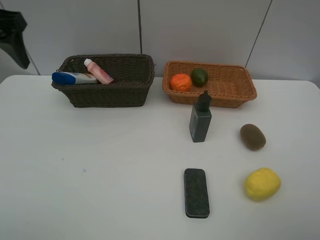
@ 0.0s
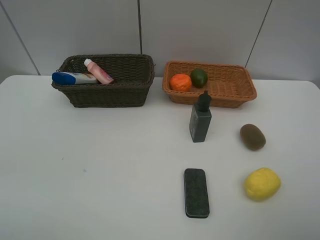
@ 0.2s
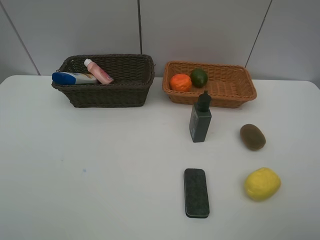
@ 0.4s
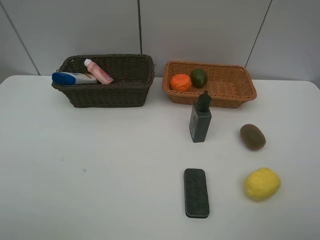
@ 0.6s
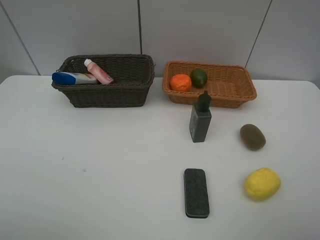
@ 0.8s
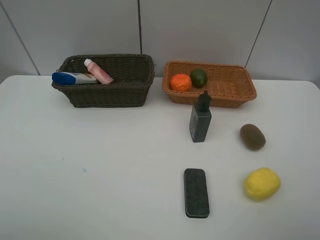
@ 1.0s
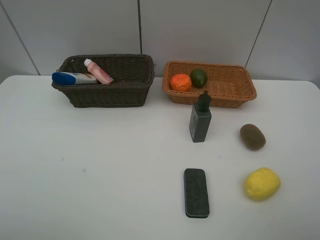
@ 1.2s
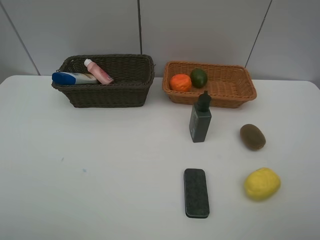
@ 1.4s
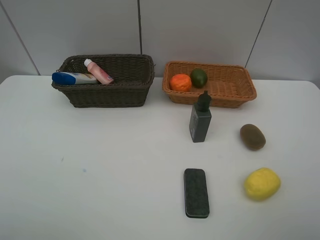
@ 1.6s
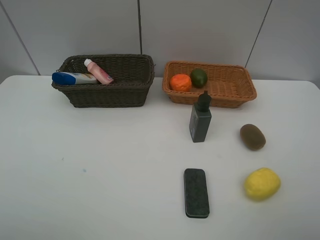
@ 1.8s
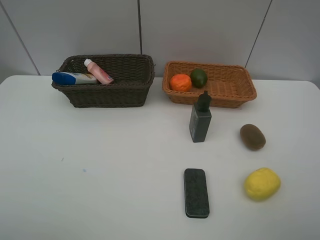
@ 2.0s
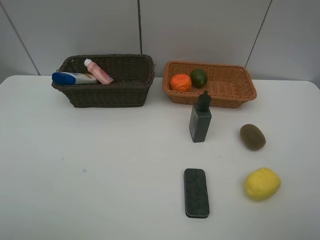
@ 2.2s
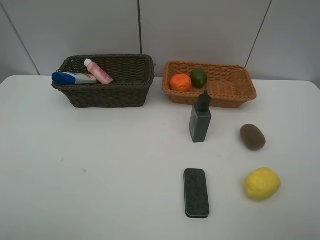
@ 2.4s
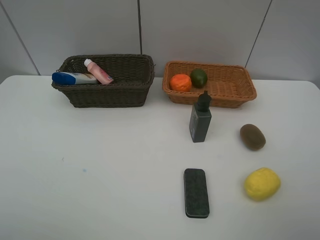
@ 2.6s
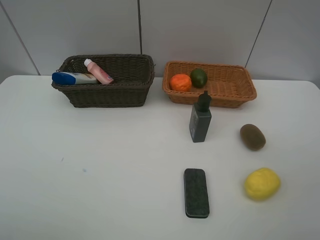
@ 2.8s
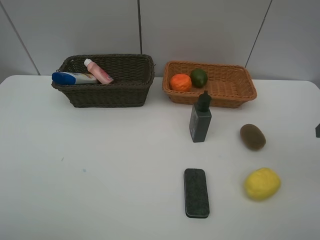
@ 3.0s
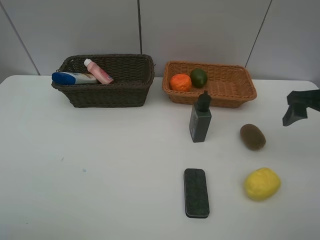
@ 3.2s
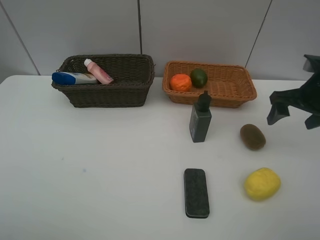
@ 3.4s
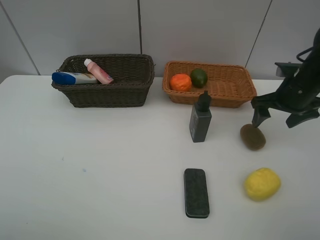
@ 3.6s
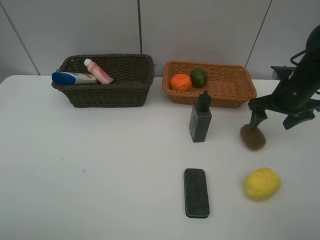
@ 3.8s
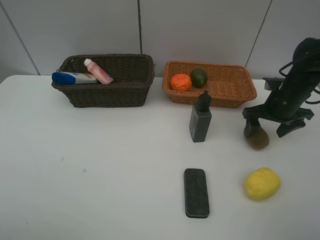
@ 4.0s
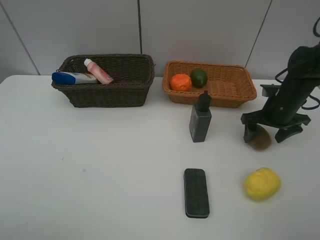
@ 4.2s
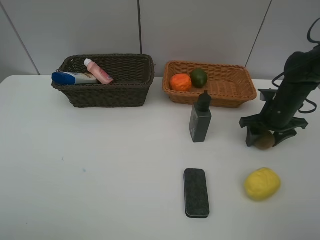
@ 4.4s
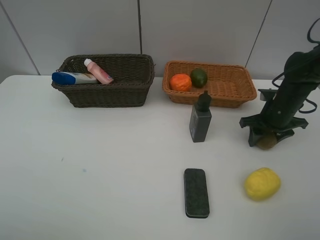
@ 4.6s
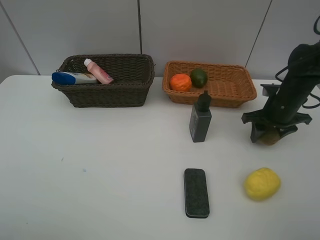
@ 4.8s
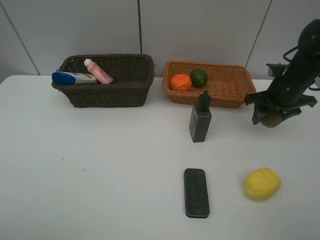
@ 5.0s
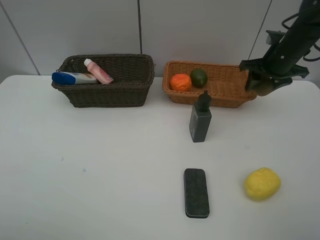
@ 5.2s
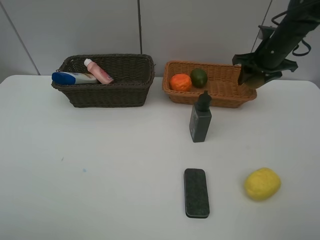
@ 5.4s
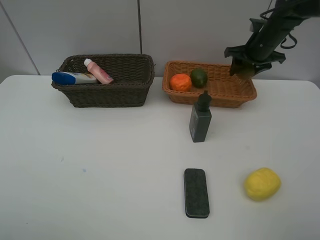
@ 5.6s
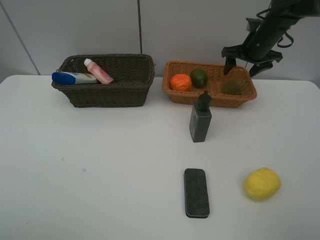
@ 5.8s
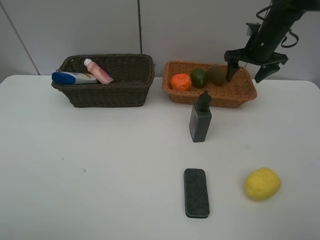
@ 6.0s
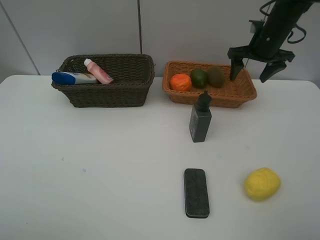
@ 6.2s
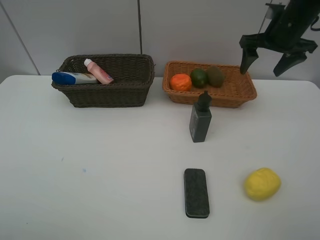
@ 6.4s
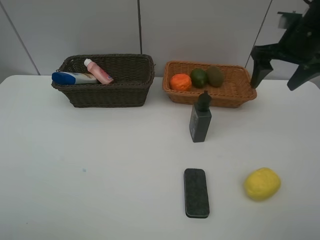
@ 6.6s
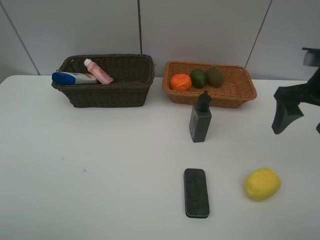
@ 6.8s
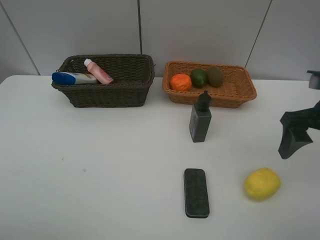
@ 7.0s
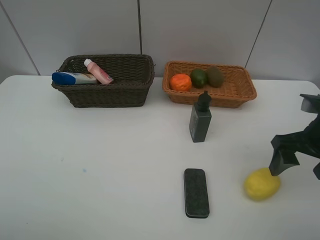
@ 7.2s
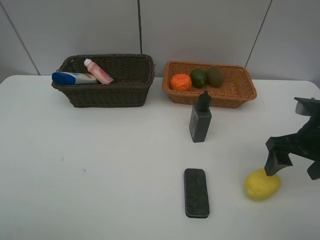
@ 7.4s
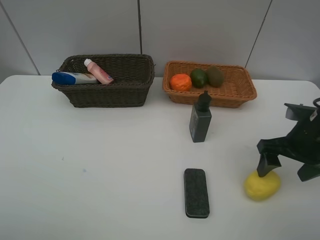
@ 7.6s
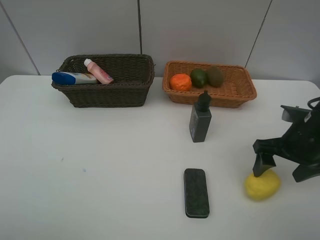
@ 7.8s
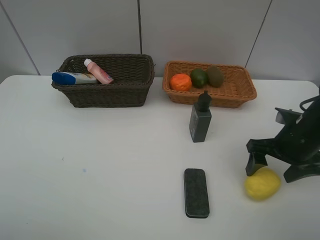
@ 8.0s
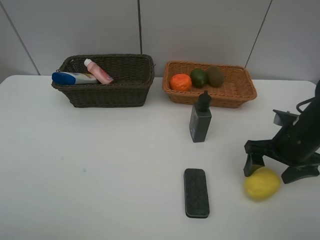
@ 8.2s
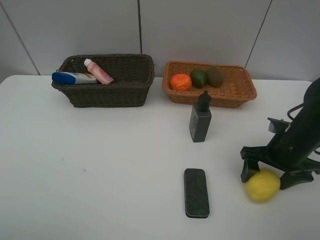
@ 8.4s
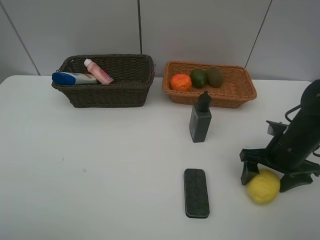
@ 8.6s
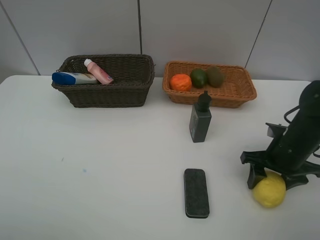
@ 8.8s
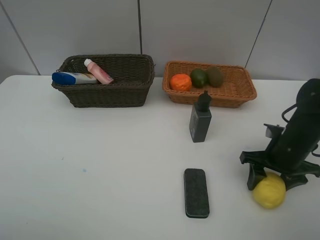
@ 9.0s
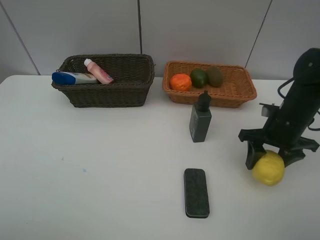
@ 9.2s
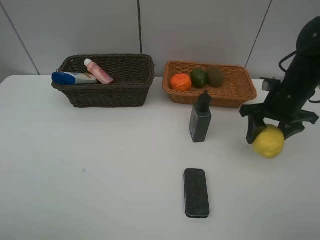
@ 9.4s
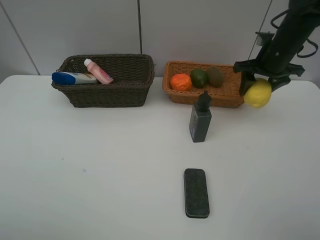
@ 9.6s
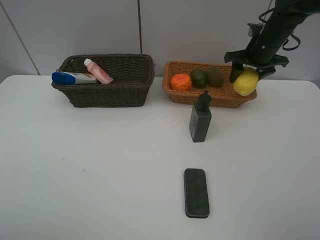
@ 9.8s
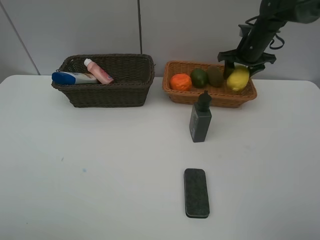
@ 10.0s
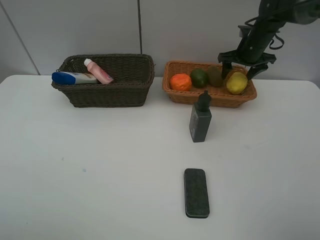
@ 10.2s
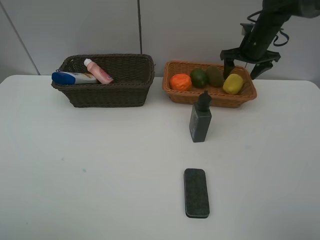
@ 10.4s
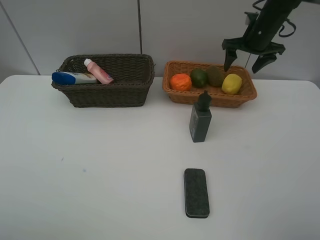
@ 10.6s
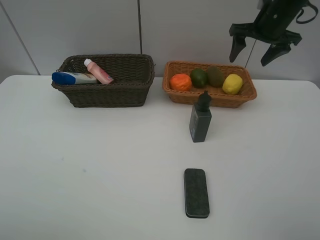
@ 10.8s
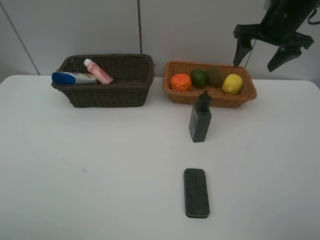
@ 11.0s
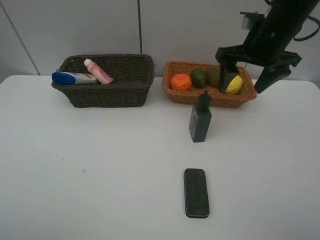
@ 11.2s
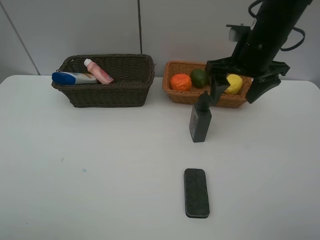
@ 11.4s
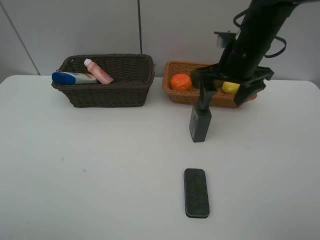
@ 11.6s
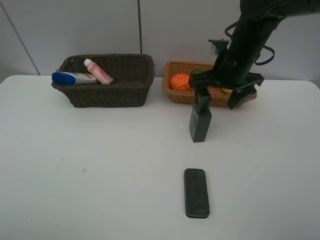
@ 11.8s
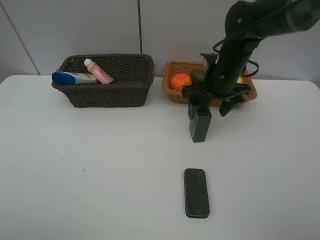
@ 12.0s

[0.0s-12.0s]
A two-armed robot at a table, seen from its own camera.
Task of the whole recording: Place multiple objects separately in different baskets.
Step, 0.0s to 4.8s: Pick up kiwi with right gripper.
Step, 5.0s to 5.8s: Place the kiwi in the light basket with right gripper.
Step, 6.0s to 9.2s: Pick up the lemon with right gripper.
Step, 9.4s to 10.4s: Place the lemon in the light basket with right gripper.
0.0s to 1.6s: The left gripper travels backward by approximately 30 cm.
3.0s to 4.4s: The right gripper is displaced forward and downward by roughly 20 cm, and closes up.
4.4s to 6.0s: The right gripper heads forward and upward, covering about 15 cm, and opens its fingers.
6.0s to 7.6s: The right gripper shifts about 25 cm backward.
7.6s to 9.0s: The right gripper goes roughly 5 cm downward, and closes up.
9.0s to 10.4s: The right gripper travels forward by about 25 cm, and opens its fingers.
10.4s to 12.0s: The right gripper goes about 20 cm backward and to the left.

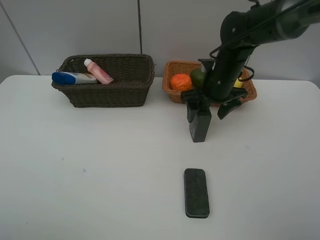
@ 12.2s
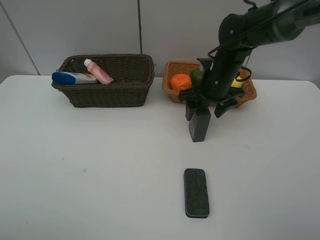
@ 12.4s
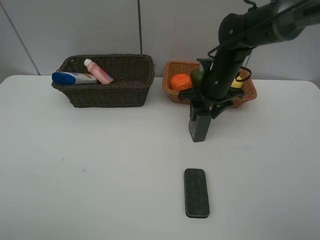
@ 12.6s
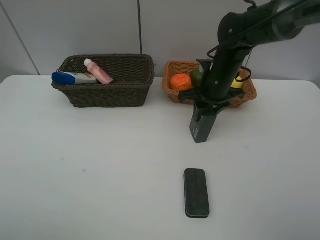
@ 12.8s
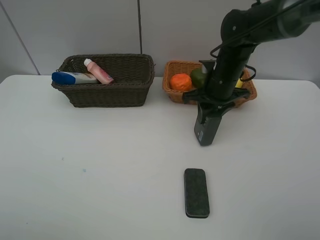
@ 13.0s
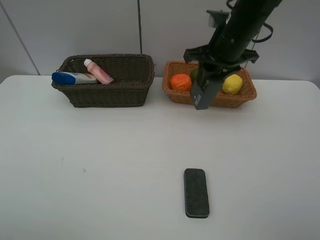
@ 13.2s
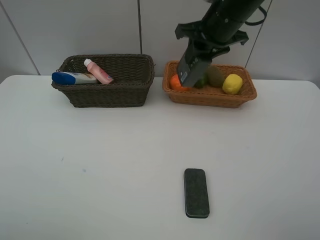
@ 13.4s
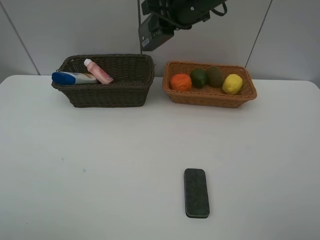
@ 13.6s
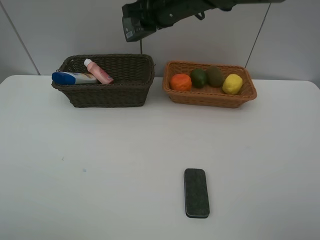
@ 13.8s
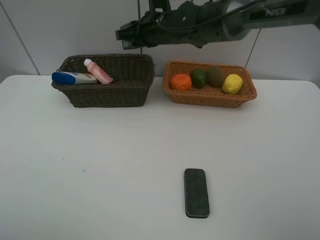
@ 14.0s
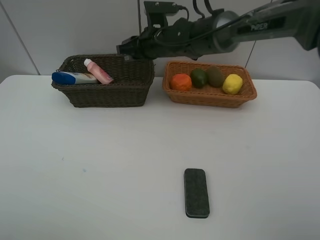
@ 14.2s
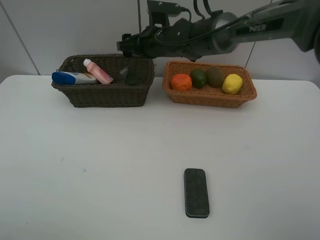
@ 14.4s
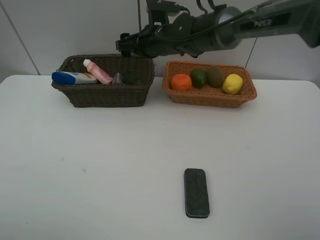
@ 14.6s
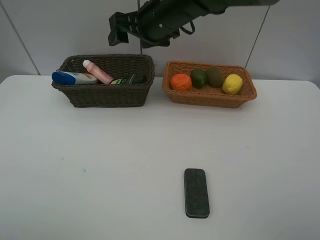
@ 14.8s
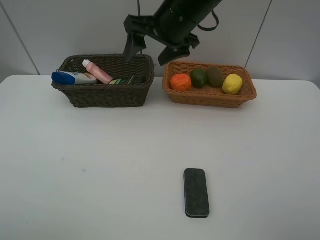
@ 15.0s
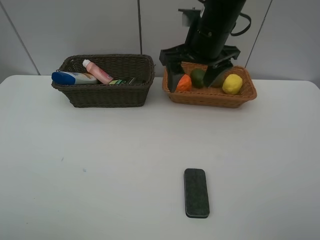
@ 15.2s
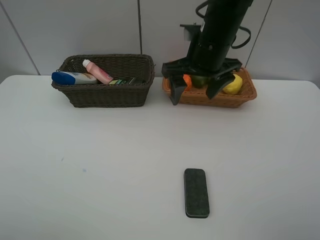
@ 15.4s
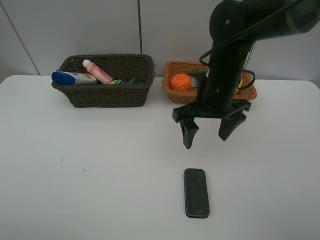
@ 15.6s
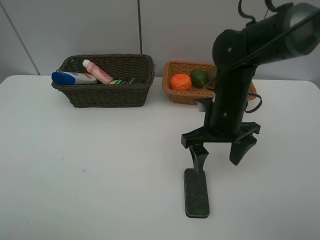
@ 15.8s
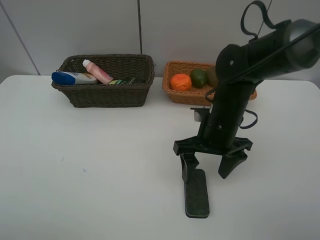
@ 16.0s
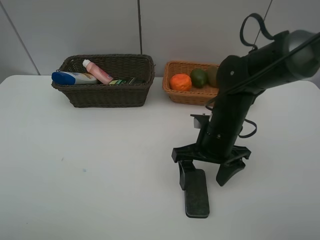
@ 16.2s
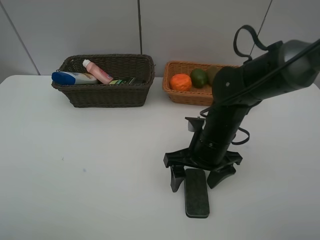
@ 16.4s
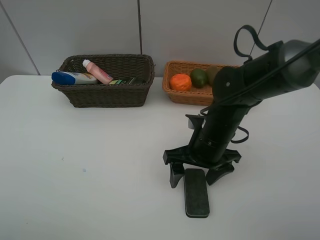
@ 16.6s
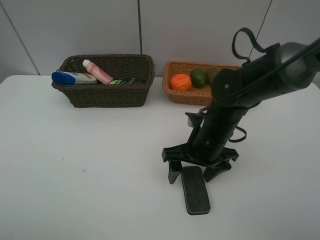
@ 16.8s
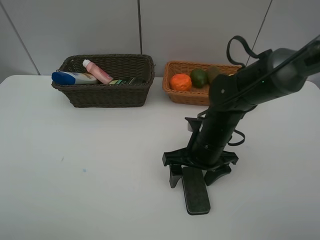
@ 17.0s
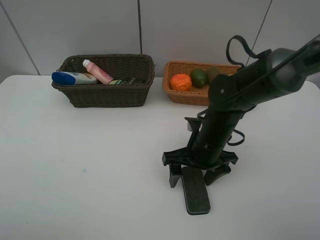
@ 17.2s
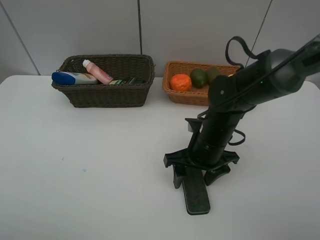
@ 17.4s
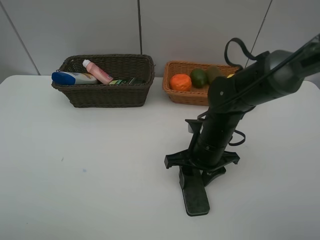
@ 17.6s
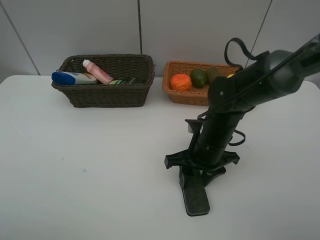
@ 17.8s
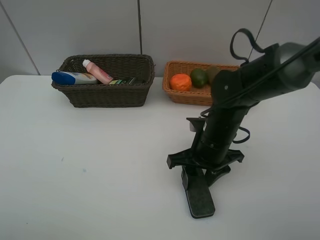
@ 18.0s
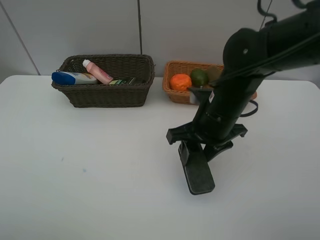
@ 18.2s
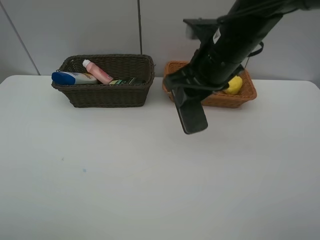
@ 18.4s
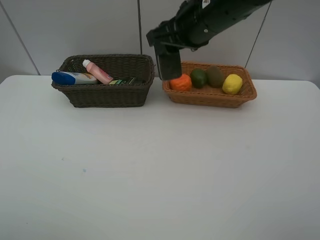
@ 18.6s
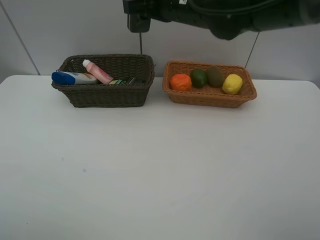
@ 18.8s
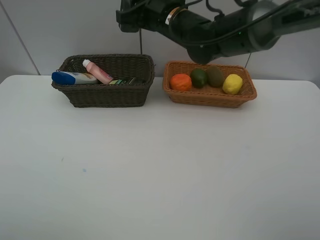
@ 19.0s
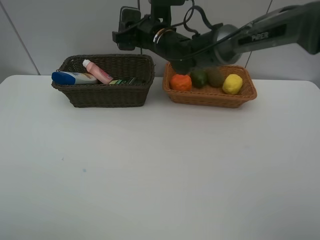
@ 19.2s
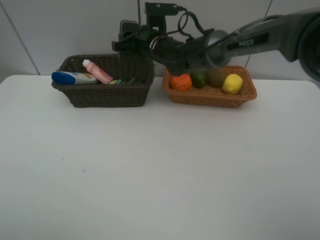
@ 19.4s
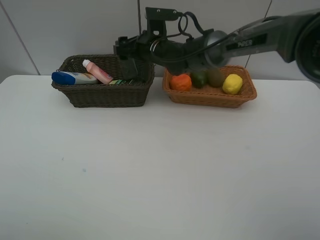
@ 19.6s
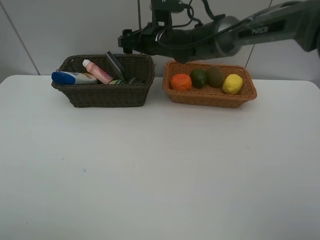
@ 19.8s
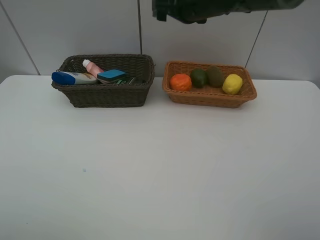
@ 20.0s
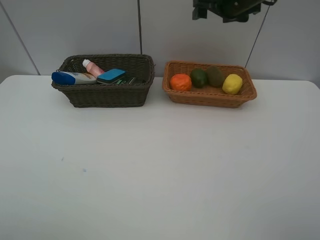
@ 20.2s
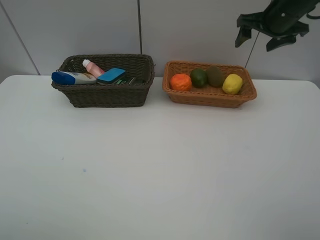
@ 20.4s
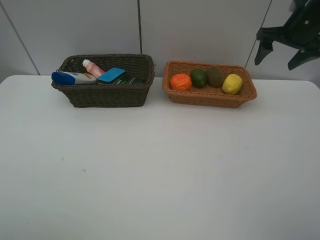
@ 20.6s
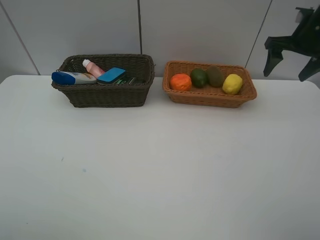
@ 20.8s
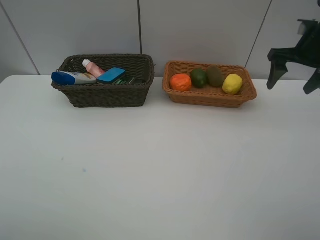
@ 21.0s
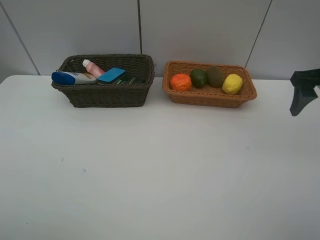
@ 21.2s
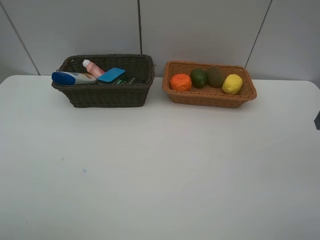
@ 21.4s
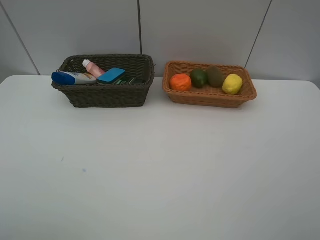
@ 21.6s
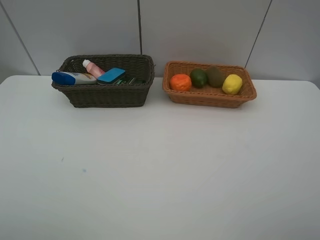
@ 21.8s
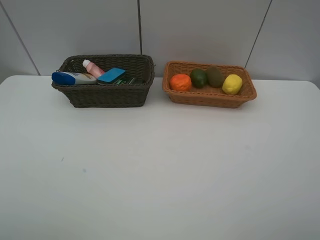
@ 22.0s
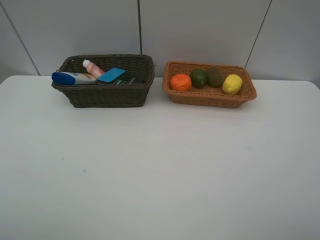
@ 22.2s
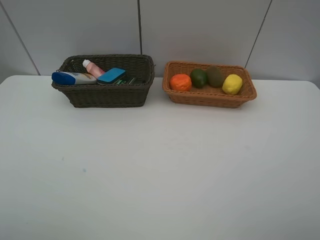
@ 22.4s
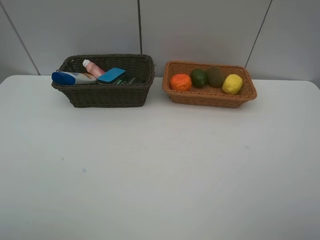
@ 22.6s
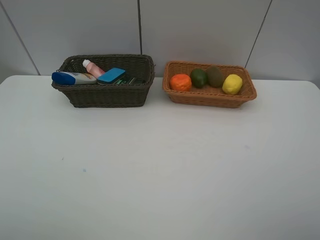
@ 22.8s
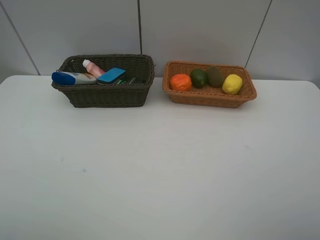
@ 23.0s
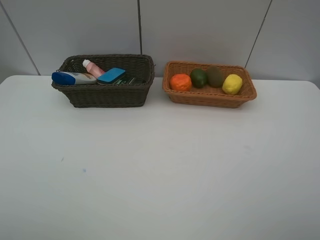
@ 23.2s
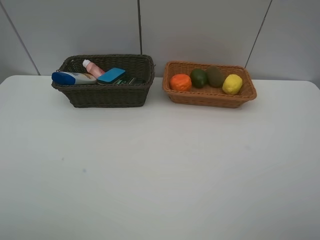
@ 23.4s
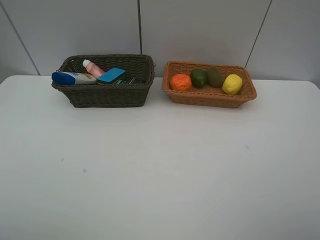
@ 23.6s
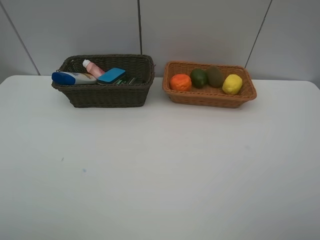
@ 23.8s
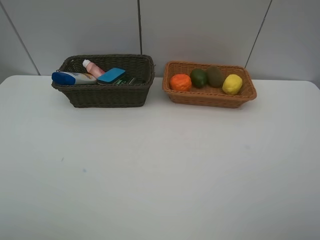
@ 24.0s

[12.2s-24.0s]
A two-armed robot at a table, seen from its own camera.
Task of the whole recording: Place multiple objects separately in different baskets.
Step, 13.2s to 14.4s: Place the hard facial cleanser in the dark basket with right gripper.
Step, 14.6s to 18.0s: Pick up blackboard eraser with right gripper.
Step, 18.2s to 19.8s: Place the blackboard eraser in the dark basket with right gripper.
12.2s to 13.6s: The right gripper heads upward and to the left, covering approximately 15 cm, and closes its fingers.
13.6s to 15.2s: The right gripper moves backward, roughly 5 cm, moves some 10 cm downward and comes back, and opens.
15.2s to 16.6s: The right gripper travels downward and backward by about 20 cm.
16.6s to 18.2s: The right gripper shifts about 10 cm upward, and closes its fingers.
18.2s to 19.6s: The right gripper shifts roughly 20 cm forward and to the left, and opens its fingers.
19.6s to 21.0s: The right gripper shifts roughly 30 cm to the right.
21.0s to 22.6s: The right gripper heads backward, covering approximately 35 cm.
22.6s to 24.0s: Both grippers stay about where they are.
